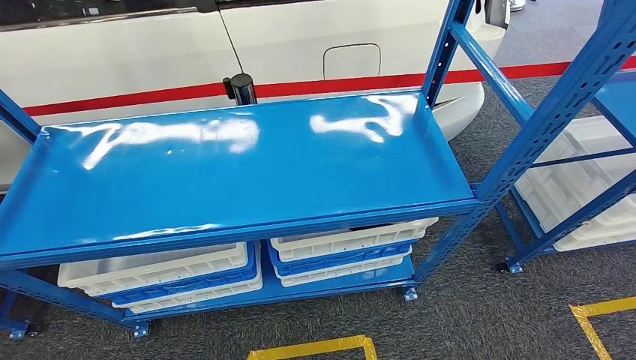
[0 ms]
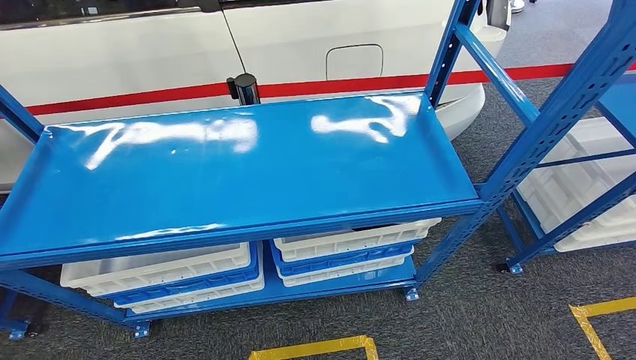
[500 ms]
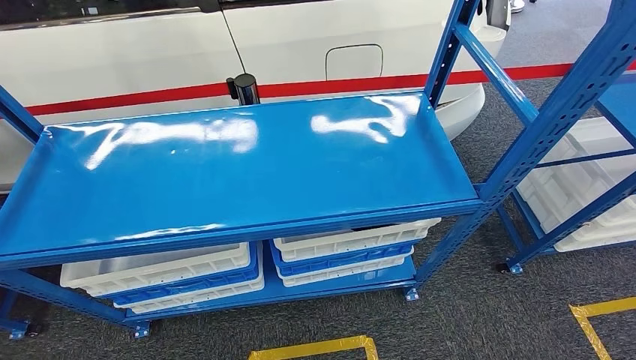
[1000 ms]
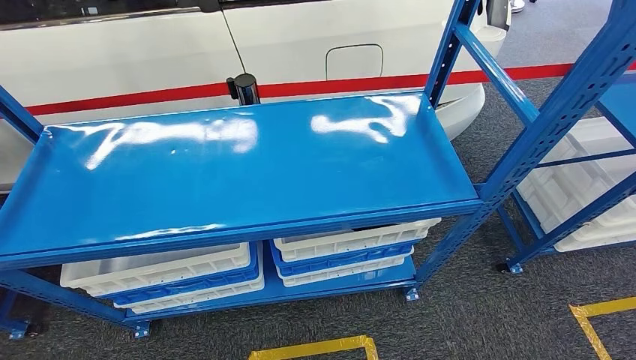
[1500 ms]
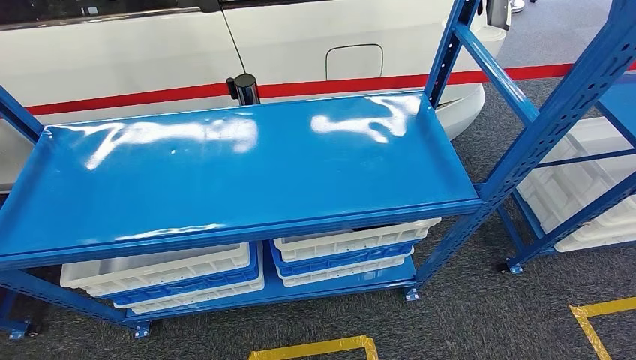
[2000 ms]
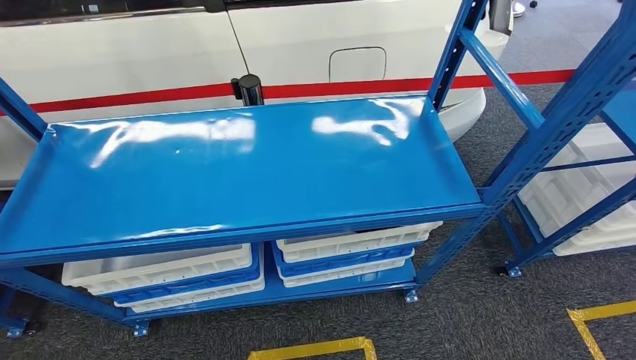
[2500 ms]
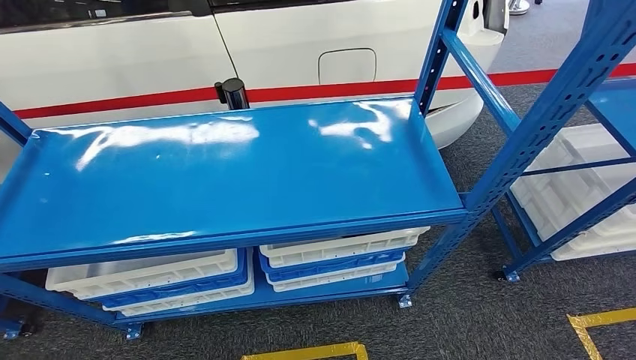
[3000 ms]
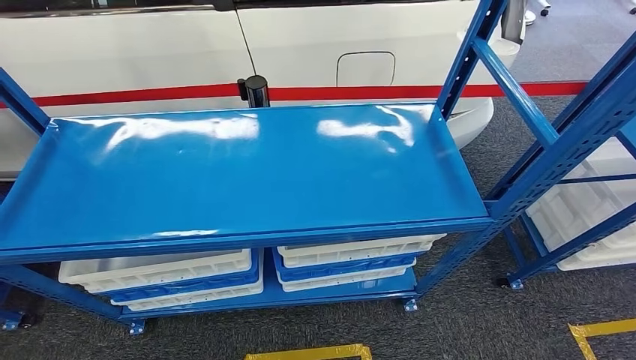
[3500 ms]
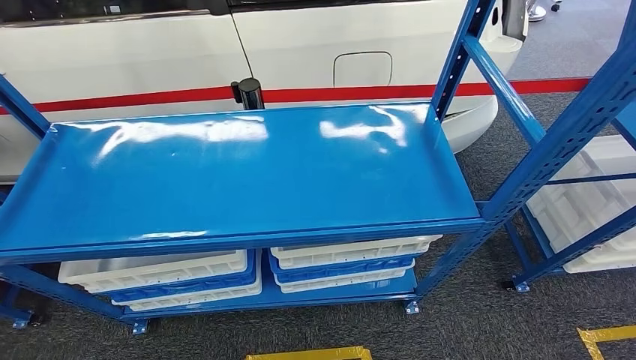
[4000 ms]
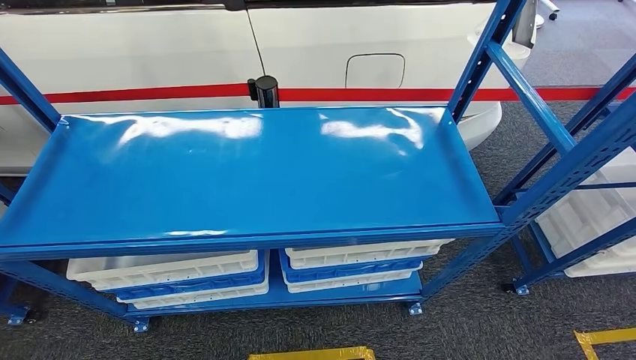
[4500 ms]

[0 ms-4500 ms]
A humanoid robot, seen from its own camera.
Step, 0 ms to 4500 ms: Move to the initial position of the shelf.
0 ms to 2000 ms: The two hands keep their place.
